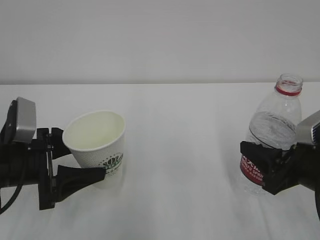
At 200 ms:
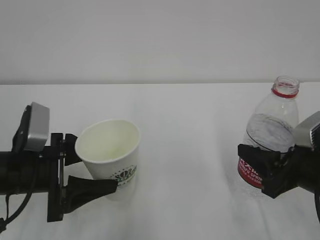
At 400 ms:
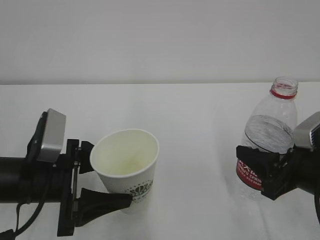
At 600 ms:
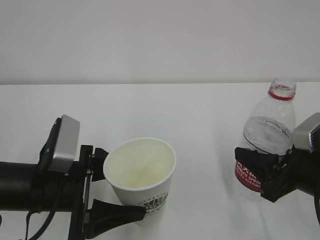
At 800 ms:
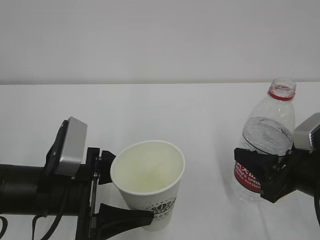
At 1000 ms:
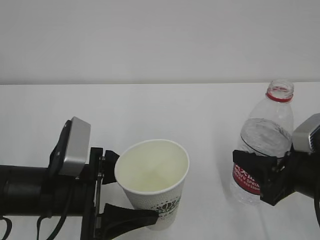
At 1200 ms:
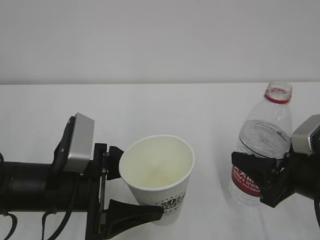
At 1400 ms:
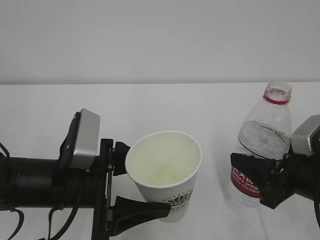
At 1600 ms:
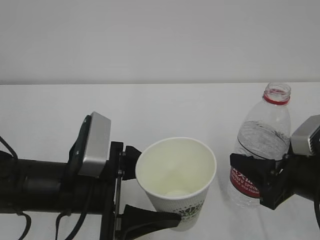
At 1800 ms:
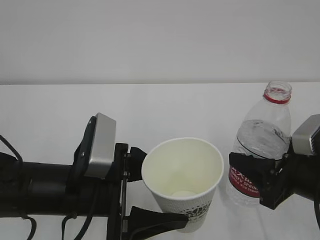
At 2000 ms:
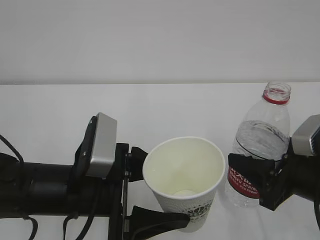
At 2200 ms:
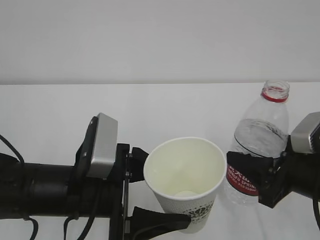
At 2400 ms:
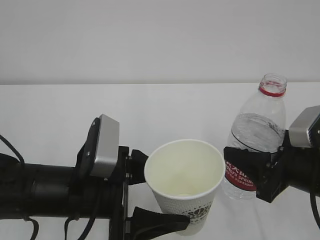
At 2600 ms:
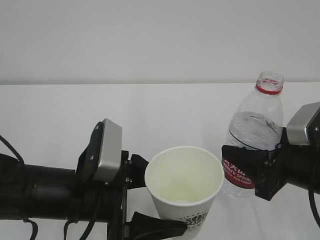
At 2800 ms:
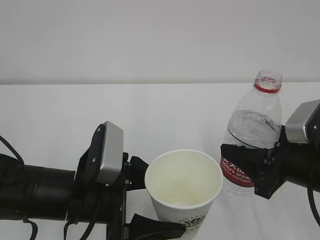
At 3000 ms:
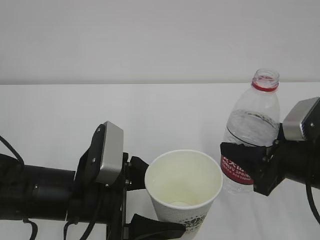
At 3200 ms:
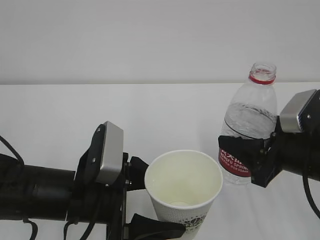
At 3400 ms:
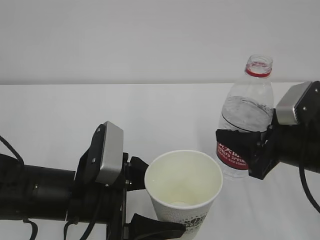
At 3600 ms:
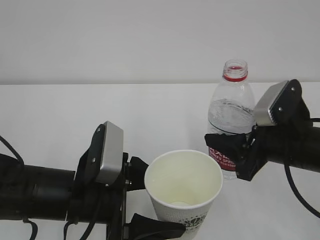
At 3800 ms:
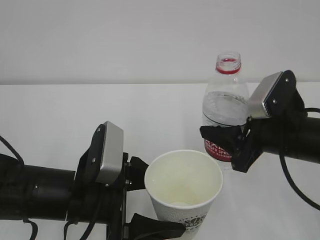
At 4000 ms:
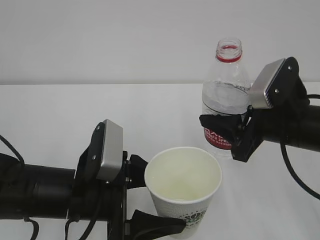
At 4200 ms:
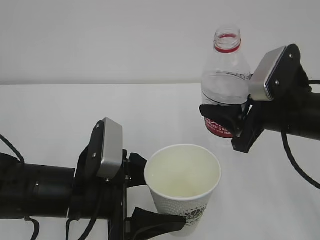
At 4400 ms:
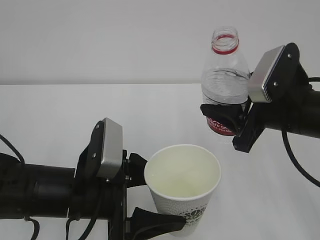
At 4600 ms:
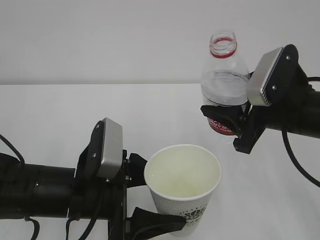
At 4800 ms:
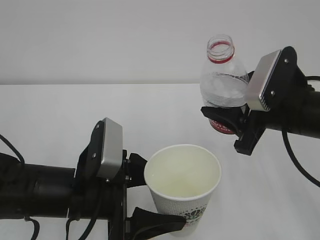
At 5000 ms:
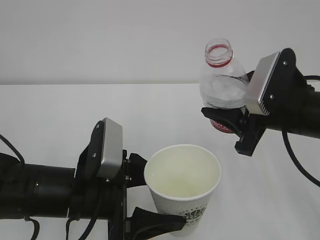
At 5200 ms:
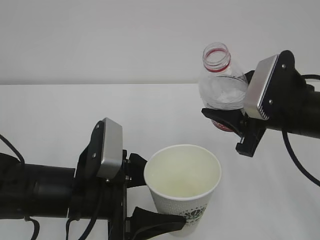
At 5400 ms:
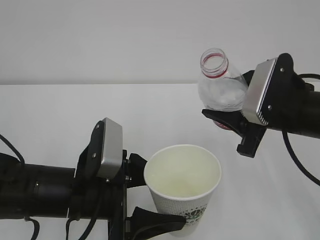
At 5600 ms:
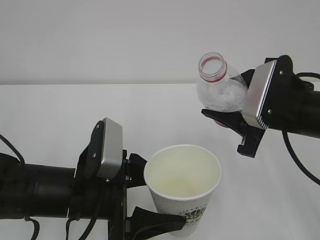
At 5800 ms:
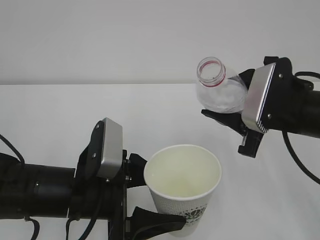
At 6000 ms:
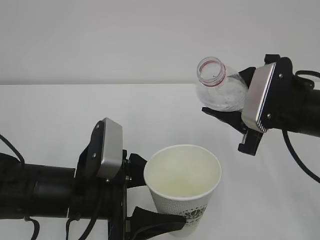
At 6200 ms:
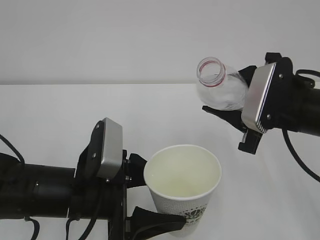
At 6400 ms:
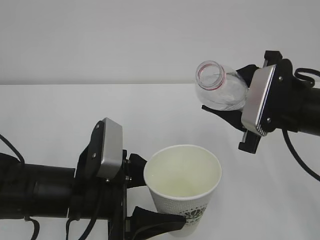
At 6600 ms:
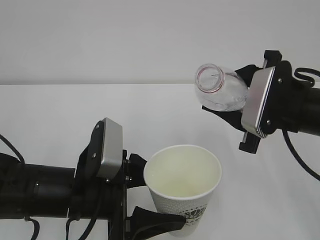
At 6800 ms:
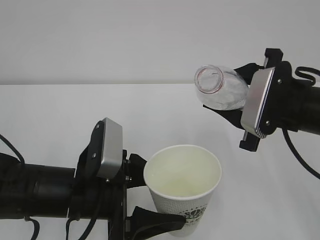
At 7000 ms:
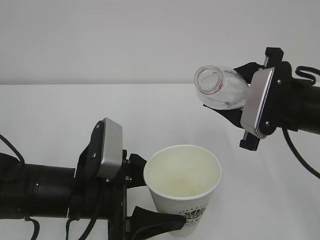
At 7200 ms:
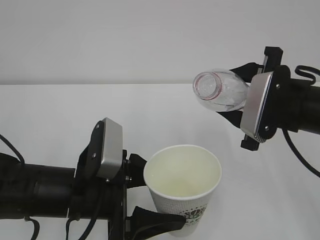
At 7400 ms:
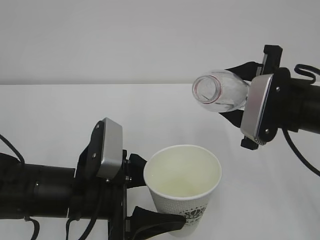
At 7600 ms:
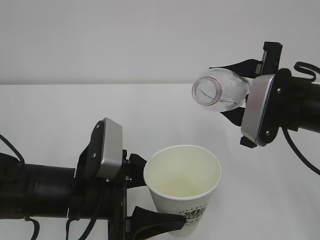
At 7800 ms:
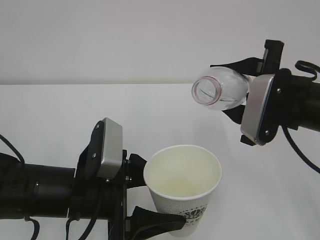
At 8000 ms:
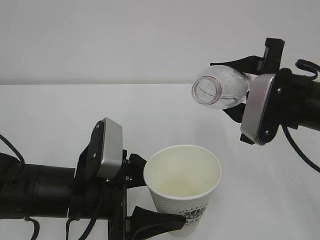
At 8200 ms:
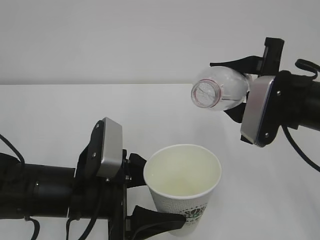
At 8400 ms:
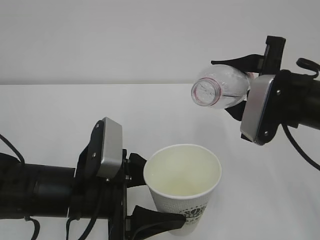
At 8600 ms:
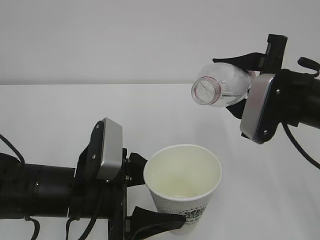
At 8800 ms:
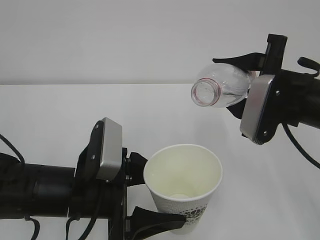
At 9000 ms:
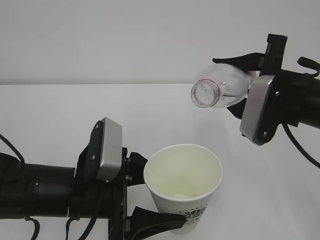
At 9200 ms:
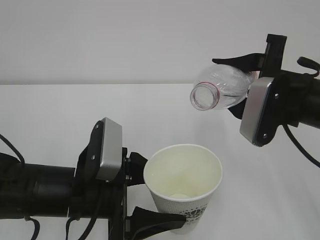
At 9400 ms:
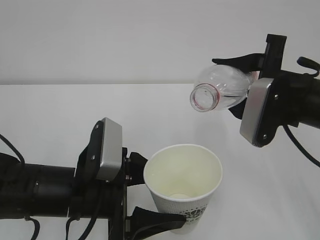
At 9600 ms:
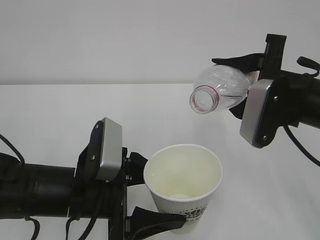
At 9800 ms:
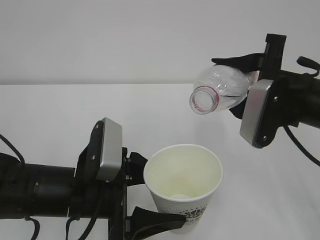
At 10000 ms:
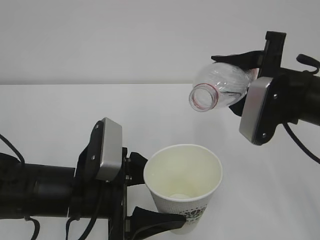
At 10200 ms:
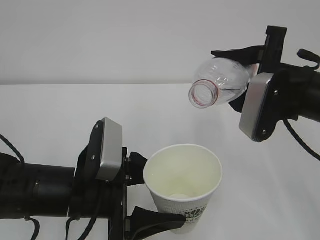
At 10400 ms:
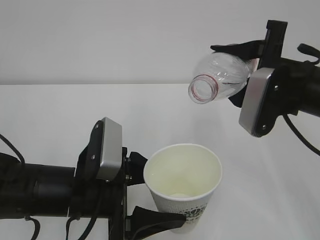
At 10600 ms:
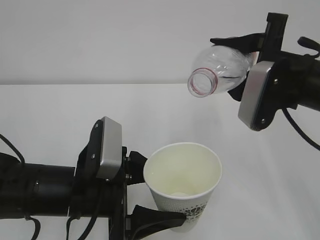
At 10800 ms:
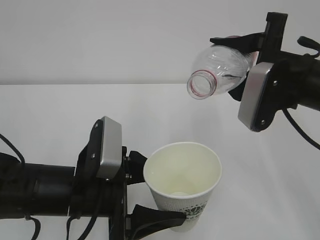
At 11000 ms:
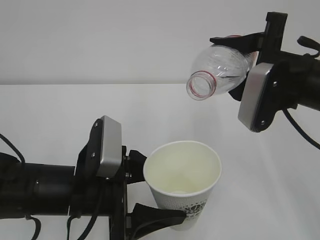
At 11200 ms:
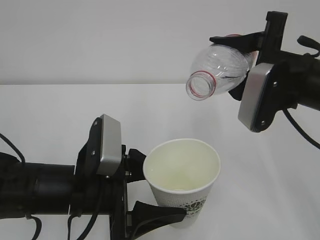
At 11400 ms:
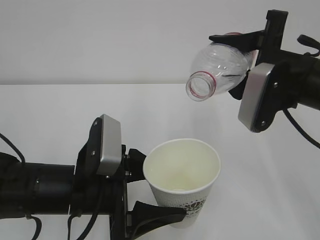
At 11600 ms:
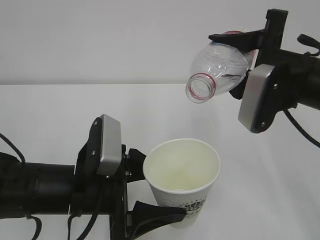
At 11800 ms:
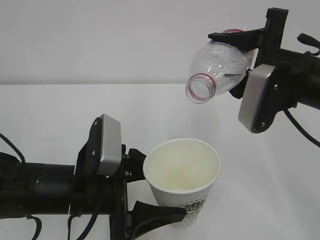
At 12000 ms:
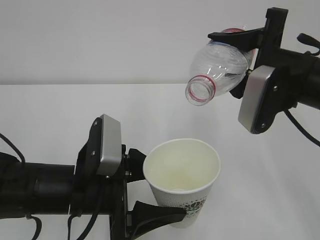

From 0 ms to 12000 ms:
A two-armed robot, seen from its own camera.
From 0 ms to 1600 ms: The left gripper goes about 10 cm to the right.
From 1600 ms to 3000 ms: The grippers stay close to where they were, moving slightly.
From 3000 ms to 4400 ms: The right gripper moves upward, approximately 5 cm.
From 6000 ms to 7600 ms: The grippers stay close to where they were, moving slightly.
From 7600 ms to 10400 ms: The grippers make only small movements.
From 10400 ms to 12000 ms: The grippers make only small movements.

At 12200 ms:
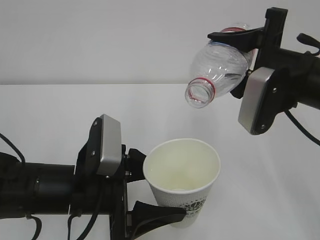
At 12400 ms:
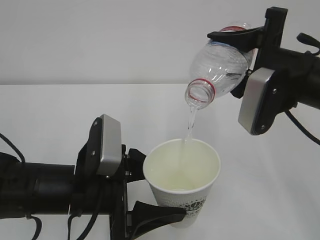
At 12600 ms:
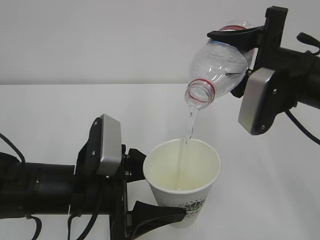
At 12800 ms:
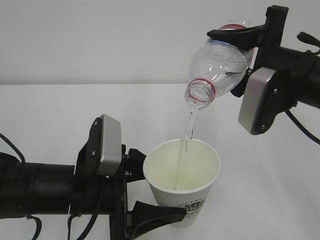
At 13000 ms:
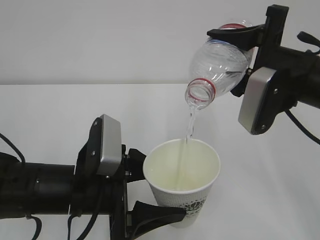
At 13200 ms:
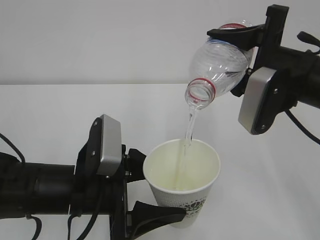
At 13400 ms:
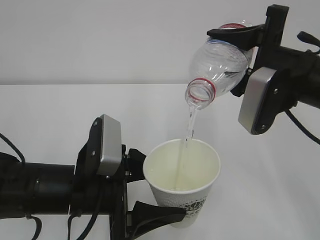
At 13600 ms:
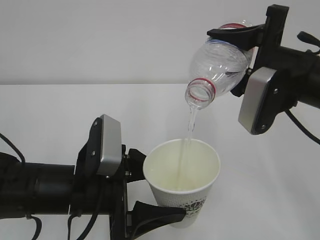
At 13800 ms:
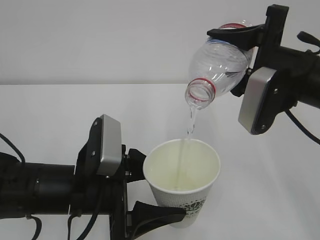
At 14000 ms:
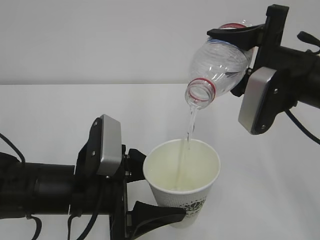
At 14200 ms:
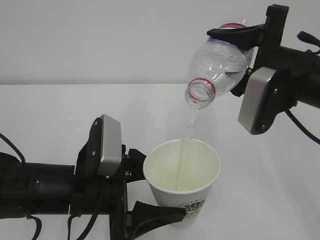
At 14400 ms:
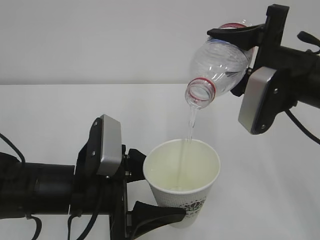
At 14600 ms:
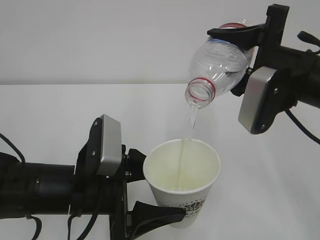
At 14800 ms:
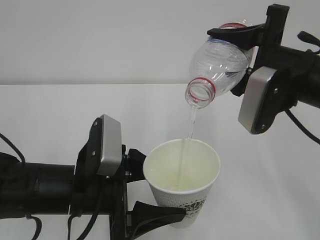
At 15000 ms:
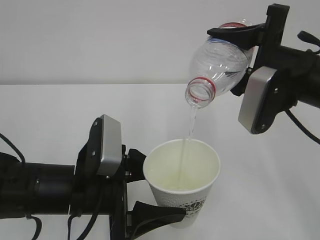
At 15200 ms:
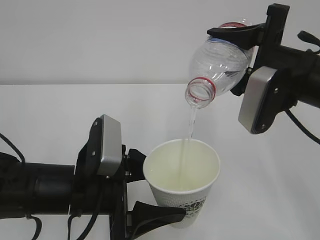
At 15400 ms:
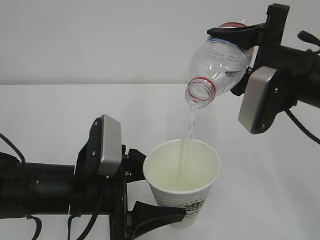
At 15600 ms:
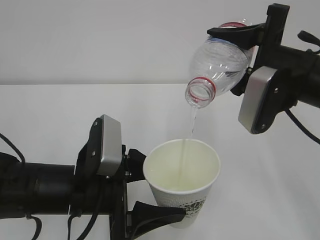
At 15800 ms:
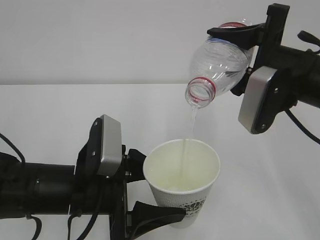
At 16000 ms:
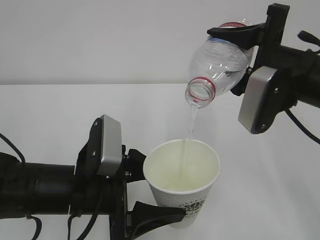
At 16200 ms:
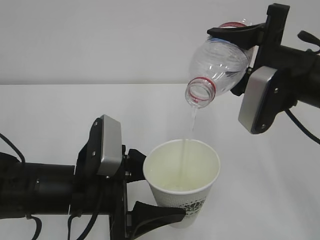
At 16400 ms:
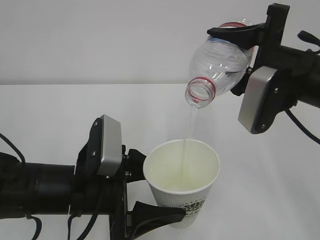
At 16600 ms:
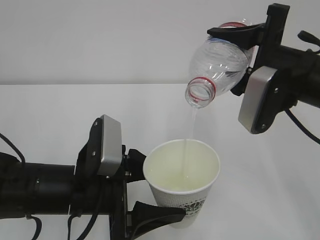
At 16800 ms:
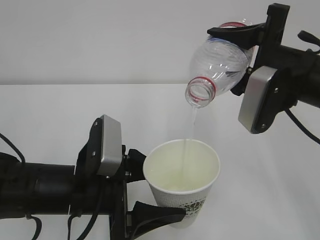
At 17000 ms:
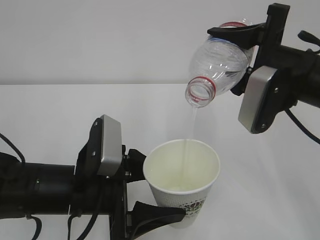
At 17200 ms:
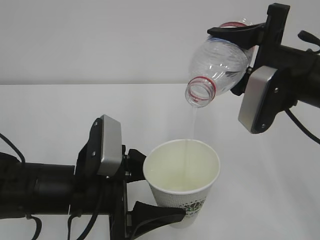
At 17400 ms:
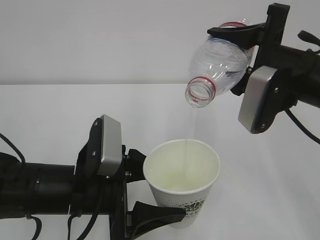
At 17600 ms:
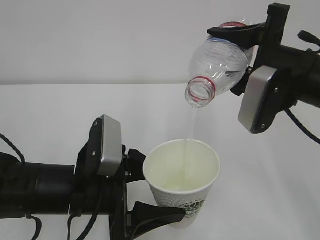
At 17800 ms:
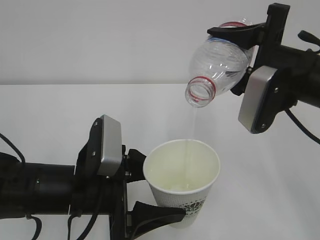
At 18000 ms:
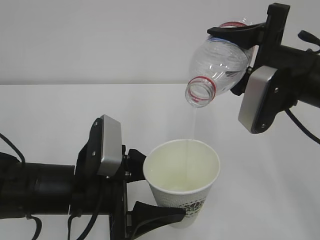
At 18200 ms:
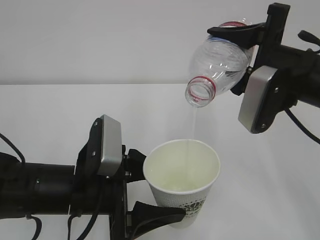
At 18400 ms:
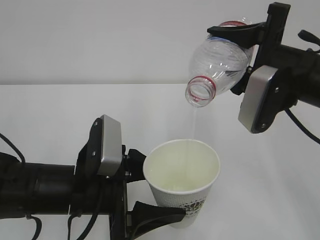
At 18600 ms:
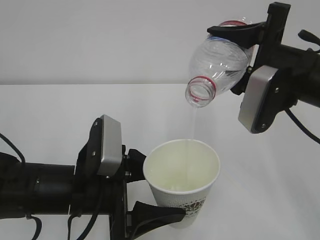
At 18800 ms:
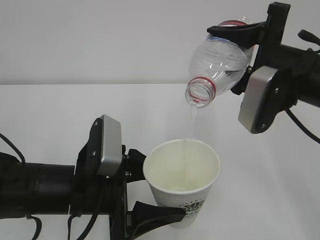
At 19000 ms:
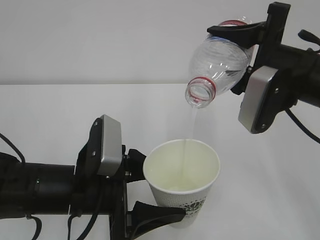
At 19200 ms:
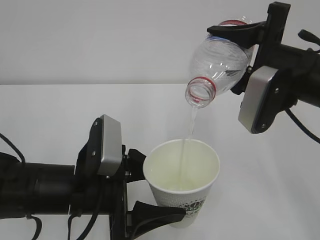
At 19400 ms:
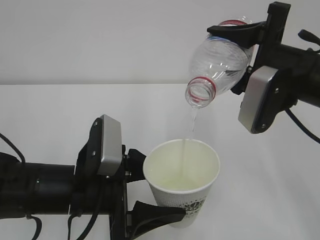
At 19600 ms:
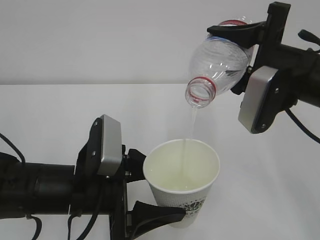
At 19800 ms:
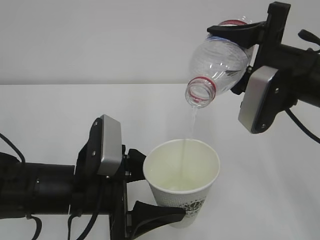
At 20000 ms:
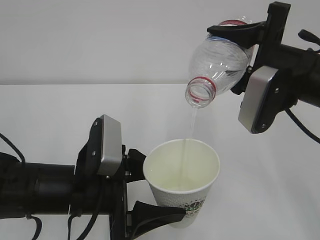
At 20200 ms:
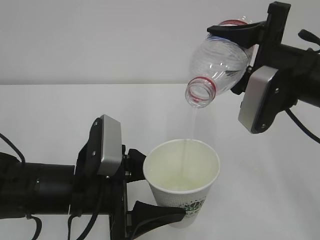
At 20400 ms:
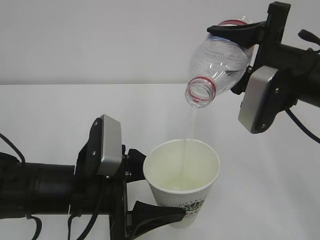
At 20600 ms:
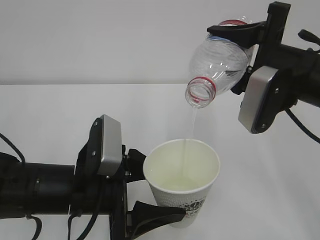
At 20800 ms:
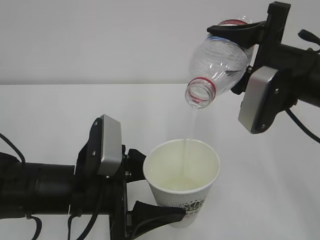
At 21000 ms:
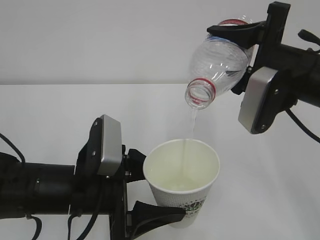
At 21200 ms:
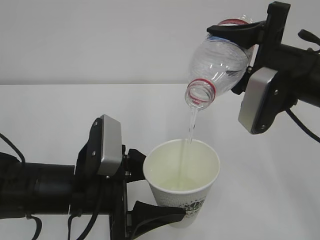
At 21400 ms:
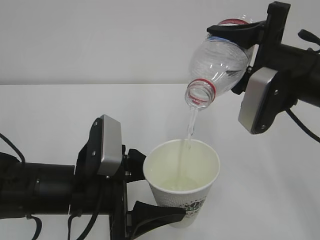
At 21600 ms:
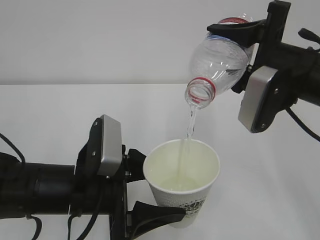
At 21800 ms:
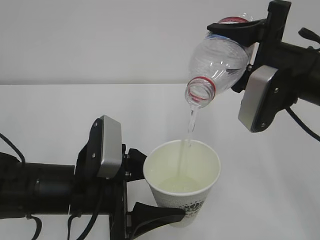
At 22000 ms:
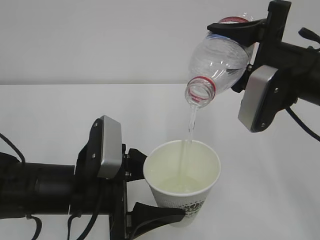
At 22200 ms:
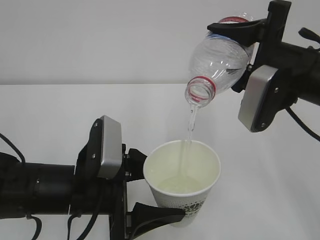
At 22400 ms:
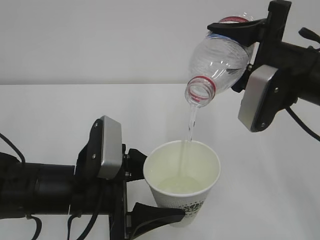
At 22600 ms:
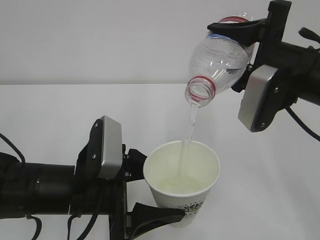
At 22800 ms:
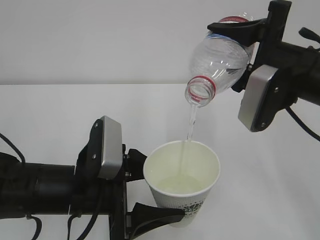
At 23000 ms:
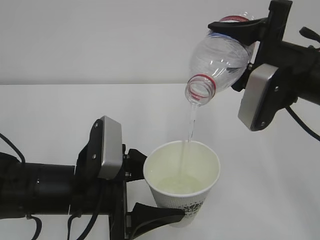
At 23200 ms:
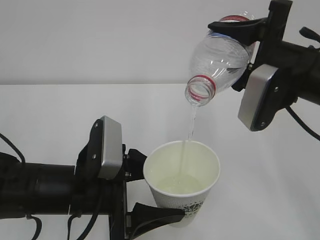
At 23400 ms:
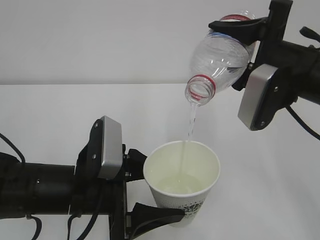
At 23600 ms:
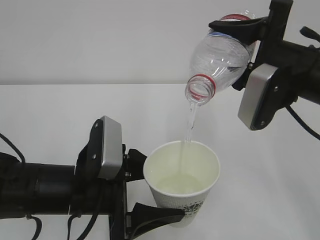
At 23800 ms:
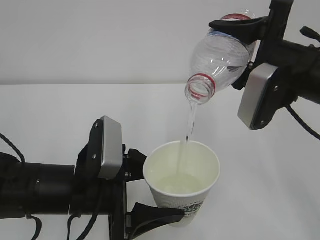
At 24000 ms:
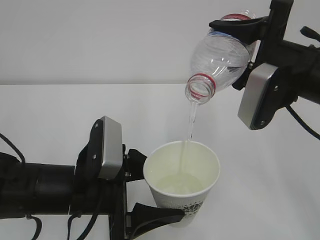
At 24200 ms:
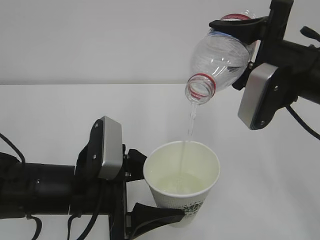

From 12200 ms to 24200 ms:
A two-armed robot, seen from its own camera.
From 12200 ms to 22600 ms: The two grippers keep their place.
From 22600 ms to 24200 ms: The two grippers keep their place.
